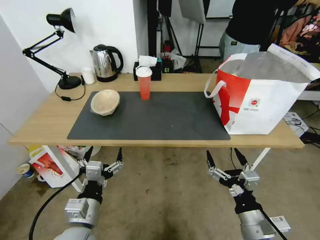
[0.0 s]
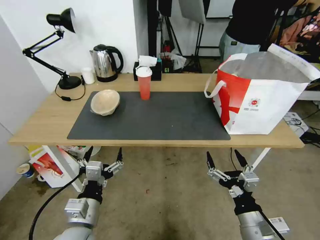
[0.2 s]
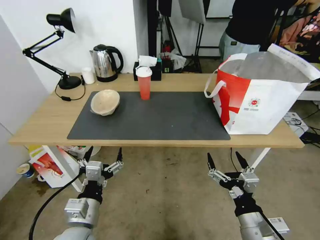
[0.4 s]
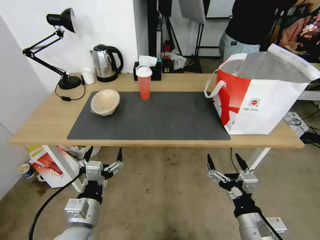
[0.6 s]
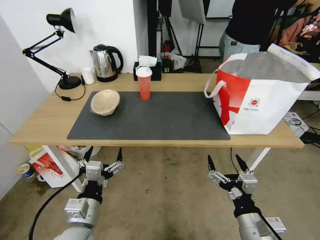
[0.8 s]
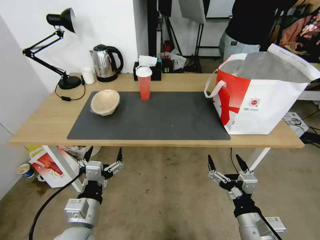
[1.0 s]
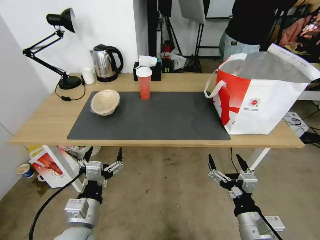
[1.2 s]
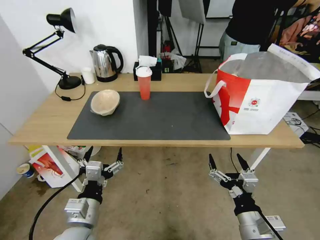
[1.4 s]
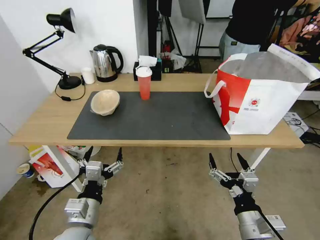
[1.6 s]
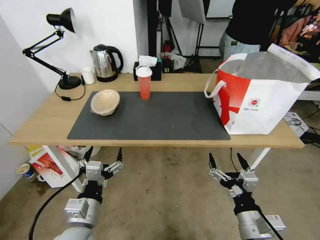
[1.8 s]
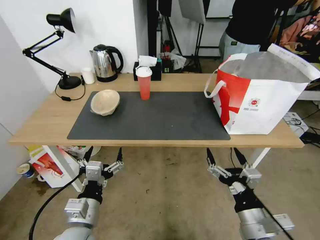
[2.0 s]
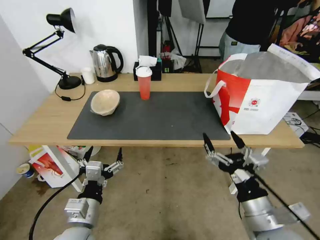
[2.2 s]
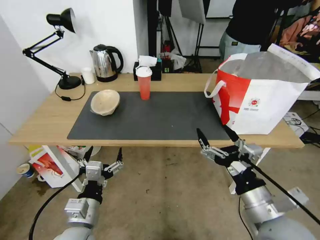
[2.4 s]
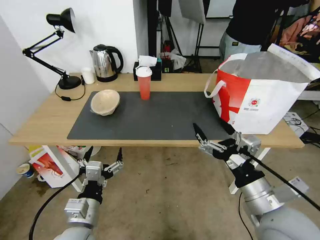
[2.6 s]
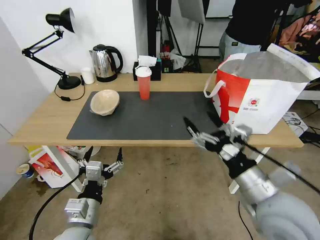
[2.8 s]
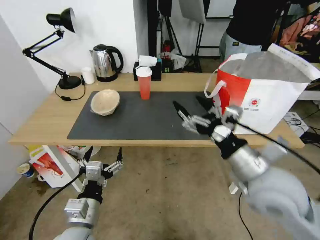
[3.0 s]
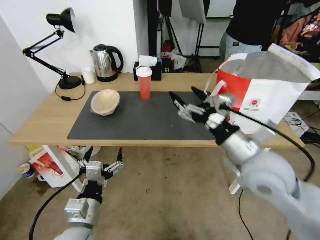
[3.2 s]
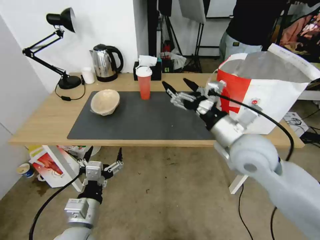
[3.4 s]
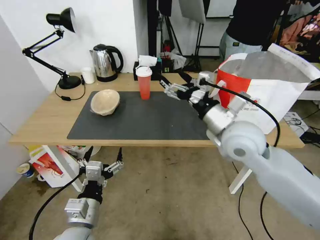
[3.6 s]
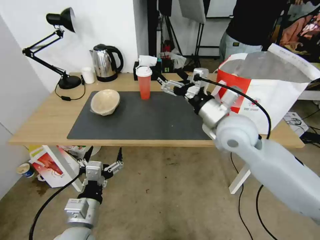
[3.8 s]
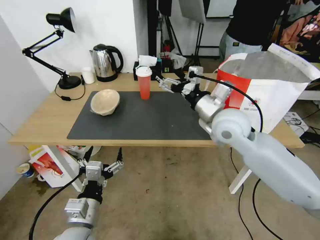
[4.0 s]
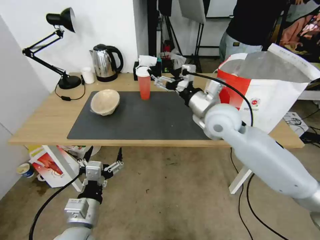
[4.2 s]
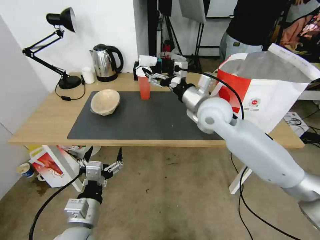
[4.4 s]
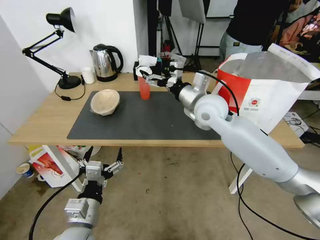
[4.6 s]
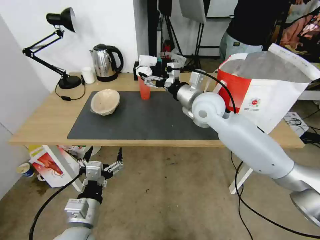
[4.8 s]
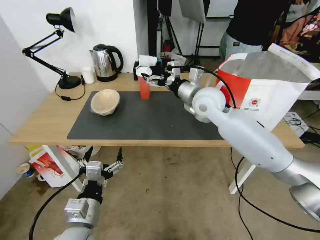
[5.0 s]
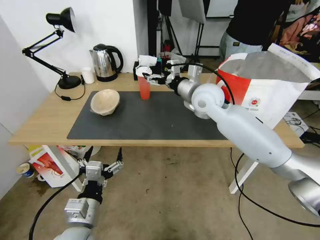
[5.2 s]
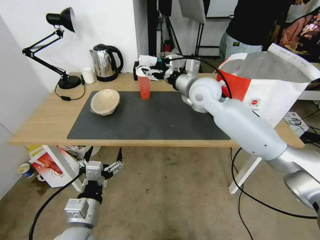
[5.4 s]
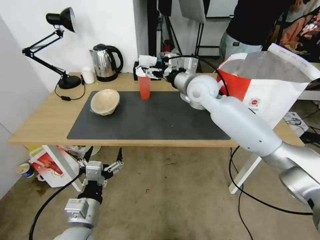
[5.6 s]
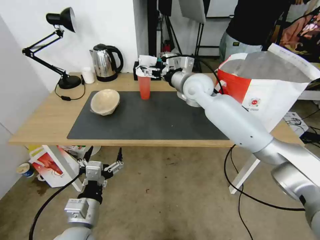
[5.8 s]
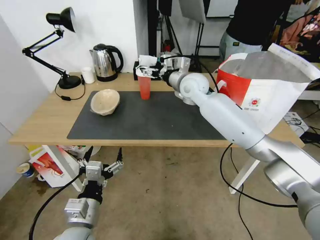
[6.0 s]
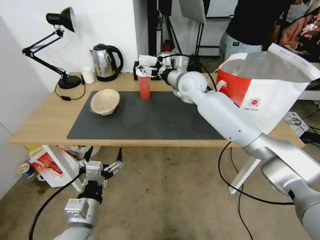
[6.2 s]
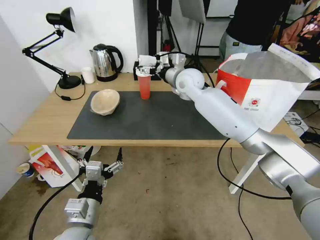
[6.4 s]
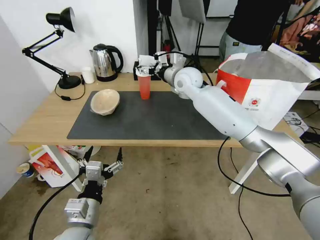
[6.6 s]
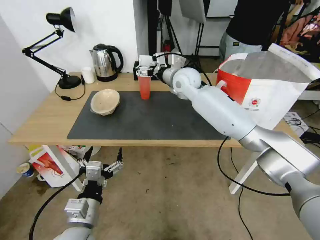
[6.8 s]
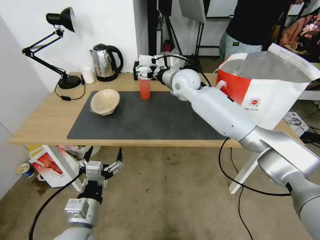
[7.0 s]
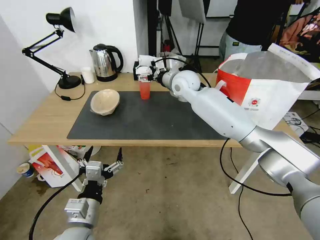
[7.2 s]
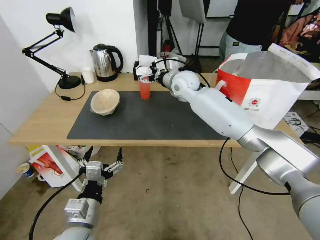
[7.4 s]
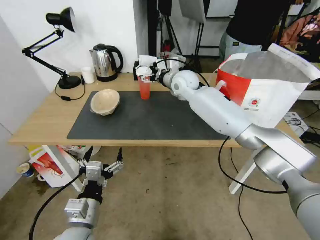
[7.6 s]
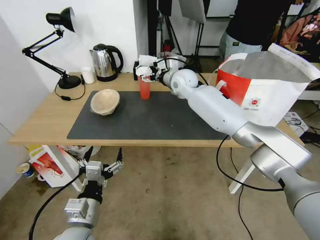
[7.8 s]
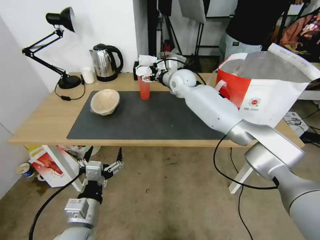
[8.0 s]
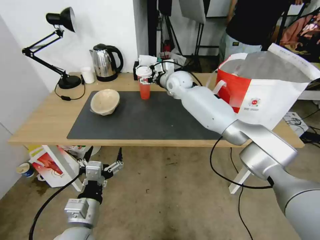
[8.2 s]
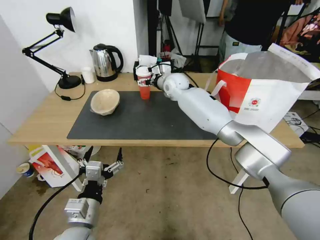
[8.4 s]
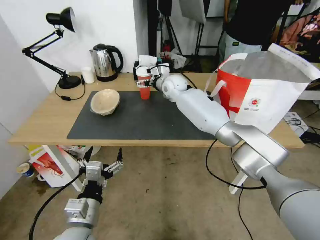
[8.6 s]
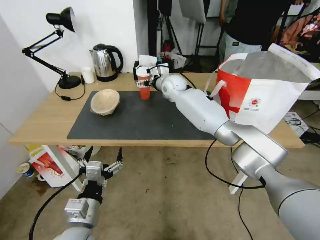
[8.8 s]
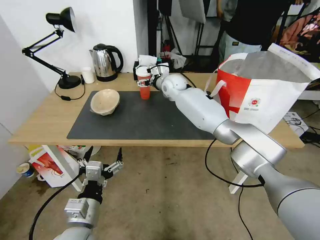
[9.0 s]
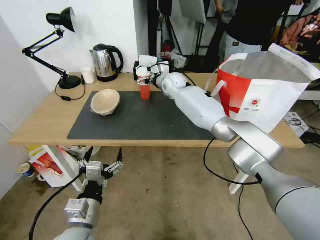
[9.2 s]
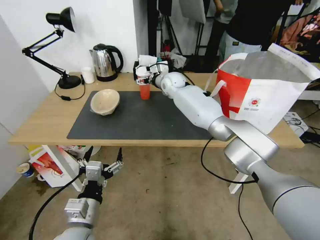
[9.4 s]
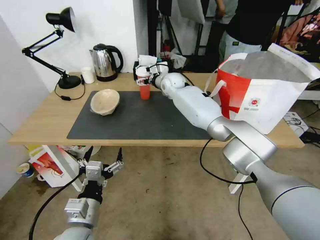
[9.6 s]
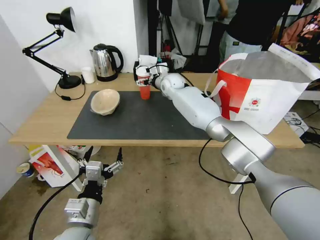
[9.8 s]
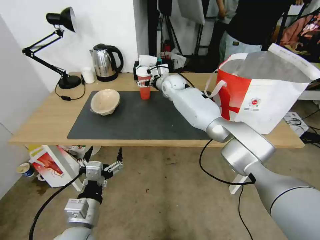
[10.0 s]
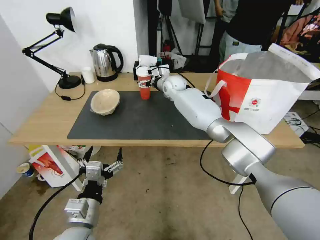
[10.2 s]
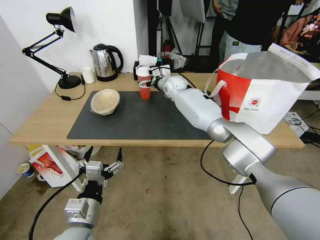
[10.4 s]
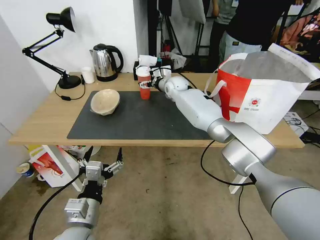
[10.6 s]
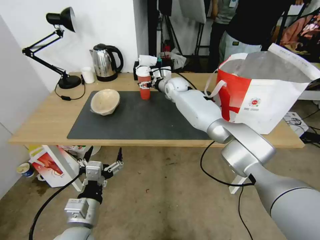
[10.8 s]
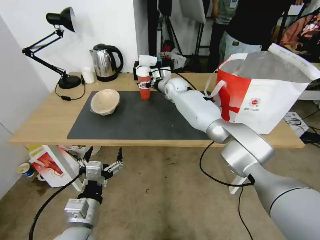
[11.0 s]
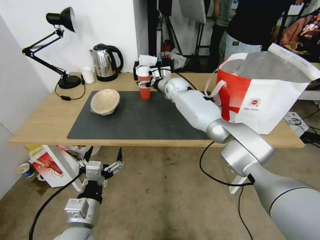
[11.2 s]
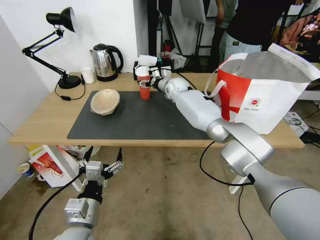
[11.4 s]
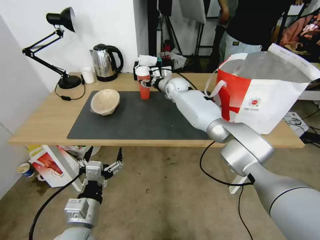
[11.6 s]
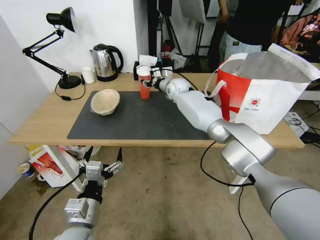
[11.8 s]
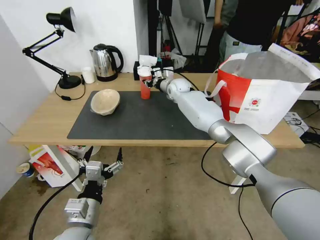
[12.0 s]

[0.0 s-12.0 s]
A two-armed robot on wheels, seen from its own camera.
Task of the whole recording: Pick up the trash from the table and place it into the takeout bag.
0.0 to 1.6 s: The grippers make only small movements.
1.6 to 3.0 s: The right gripper shifts approximately 15 cm upward and forward.
3.0 to 4.4 s: The right gripper goes about 20 cm forward.
4.4 to 6.0 s: The right gripper is displaced forward by about 15 cm.
6.0 to 7.6 s: The grippers make only small movements.
7.6 to 9.0 s: The right gripper ends up approximately 5 cm from where it was.
9.0 to 10.4 s: The grippers move only a little.
10.4 to 12.0 s: The right gripper closes.

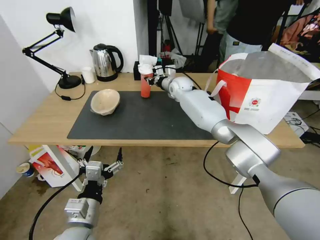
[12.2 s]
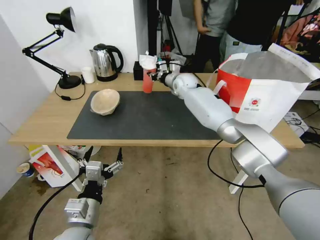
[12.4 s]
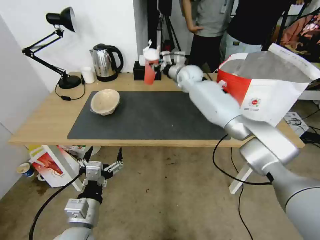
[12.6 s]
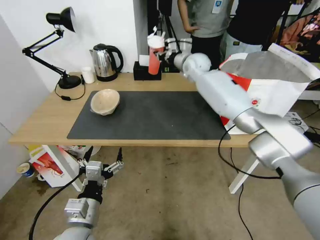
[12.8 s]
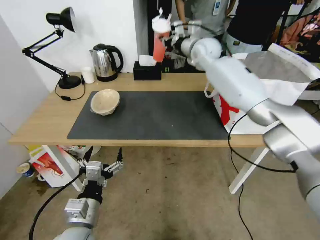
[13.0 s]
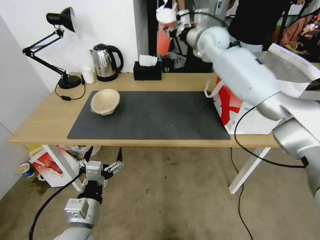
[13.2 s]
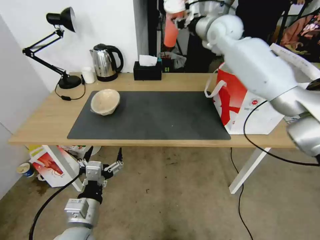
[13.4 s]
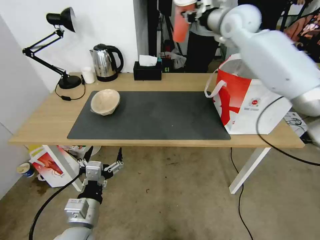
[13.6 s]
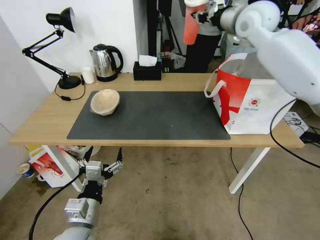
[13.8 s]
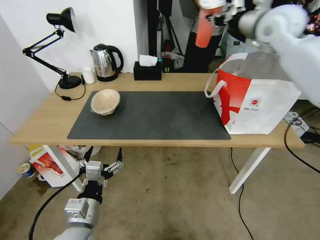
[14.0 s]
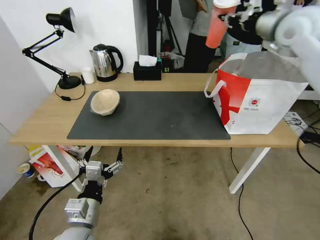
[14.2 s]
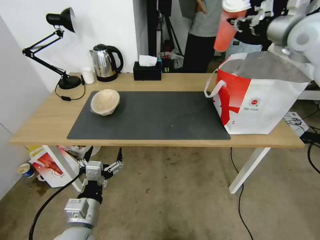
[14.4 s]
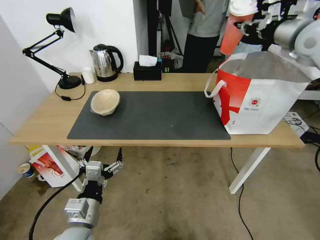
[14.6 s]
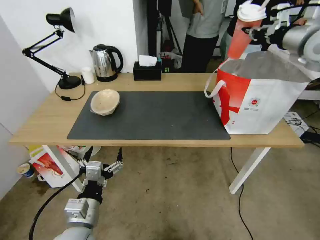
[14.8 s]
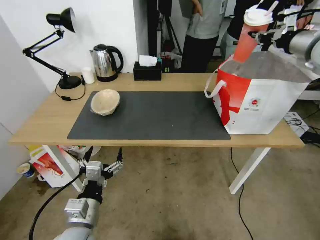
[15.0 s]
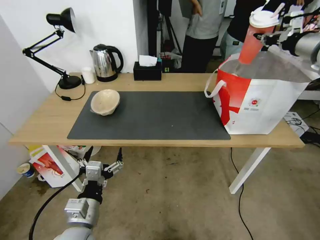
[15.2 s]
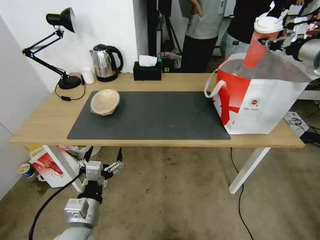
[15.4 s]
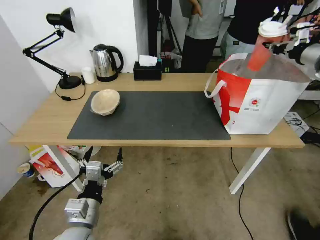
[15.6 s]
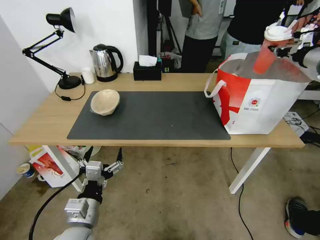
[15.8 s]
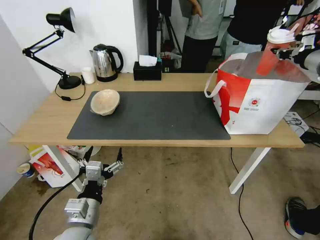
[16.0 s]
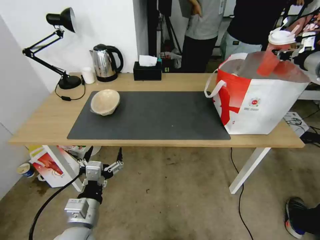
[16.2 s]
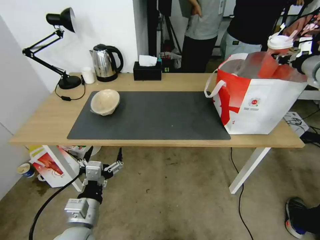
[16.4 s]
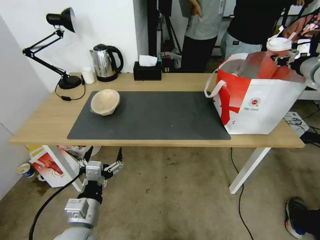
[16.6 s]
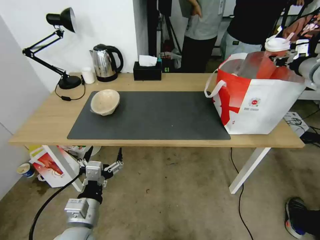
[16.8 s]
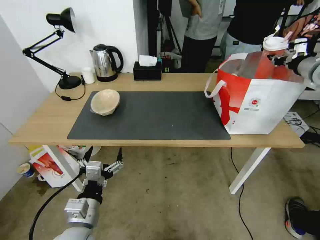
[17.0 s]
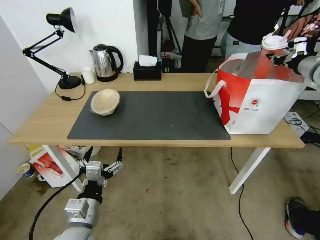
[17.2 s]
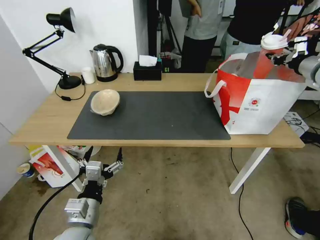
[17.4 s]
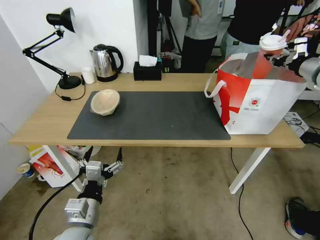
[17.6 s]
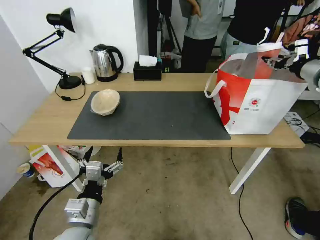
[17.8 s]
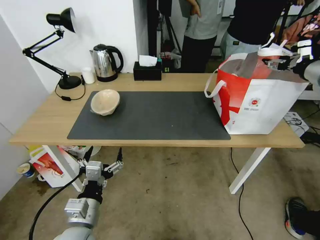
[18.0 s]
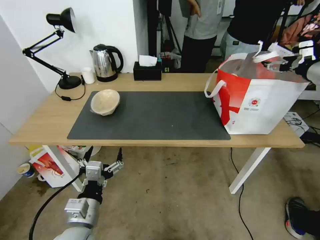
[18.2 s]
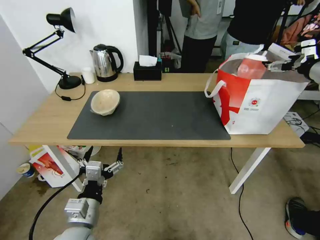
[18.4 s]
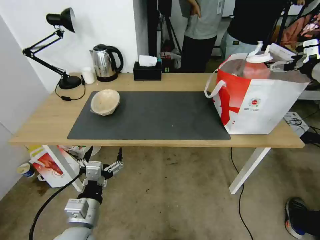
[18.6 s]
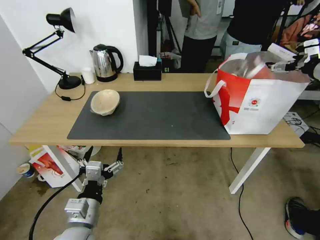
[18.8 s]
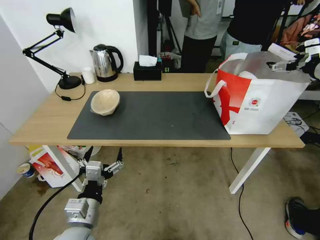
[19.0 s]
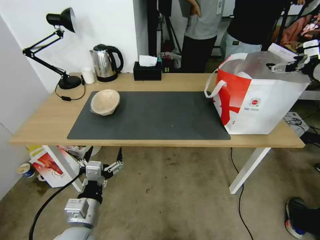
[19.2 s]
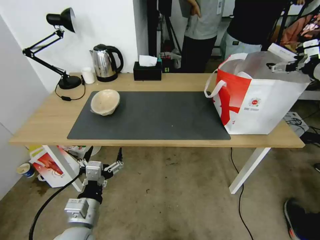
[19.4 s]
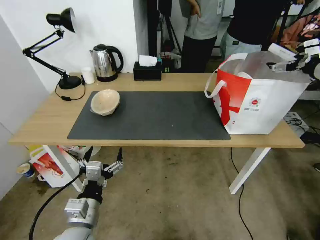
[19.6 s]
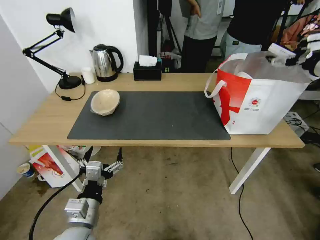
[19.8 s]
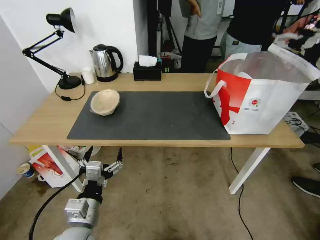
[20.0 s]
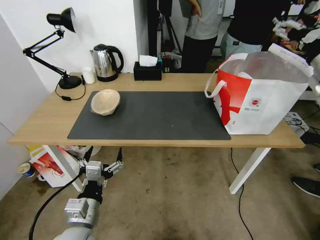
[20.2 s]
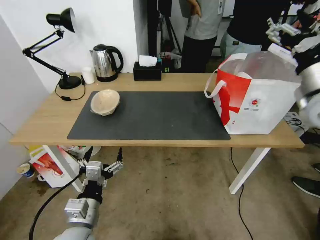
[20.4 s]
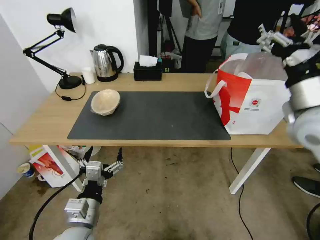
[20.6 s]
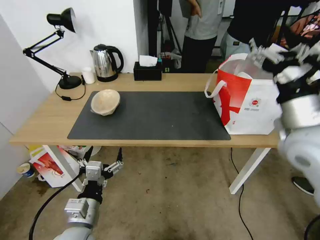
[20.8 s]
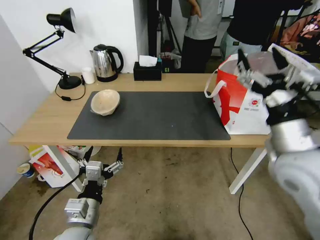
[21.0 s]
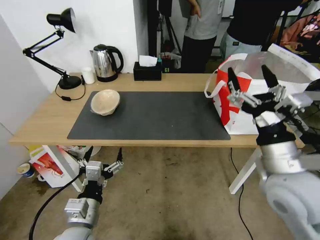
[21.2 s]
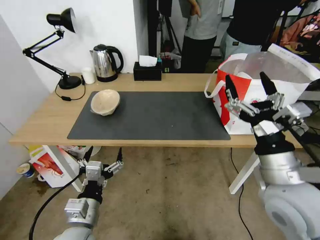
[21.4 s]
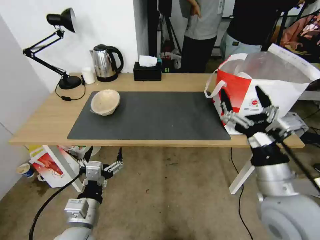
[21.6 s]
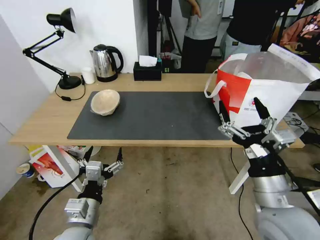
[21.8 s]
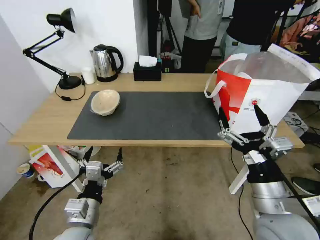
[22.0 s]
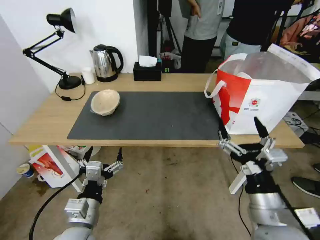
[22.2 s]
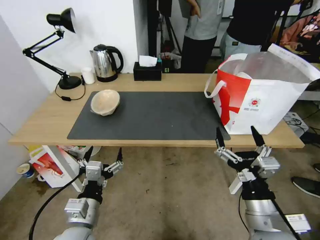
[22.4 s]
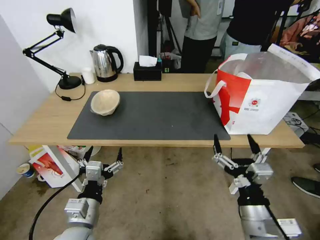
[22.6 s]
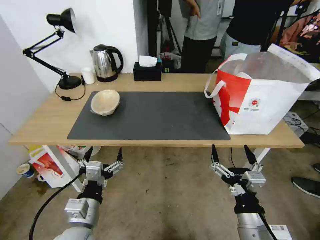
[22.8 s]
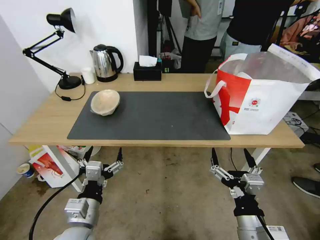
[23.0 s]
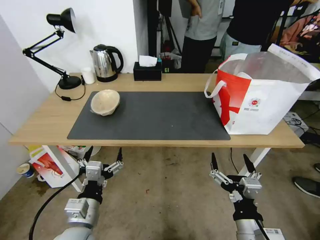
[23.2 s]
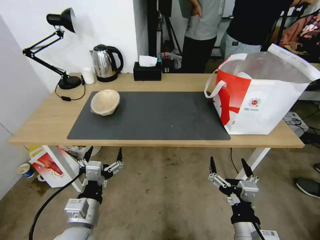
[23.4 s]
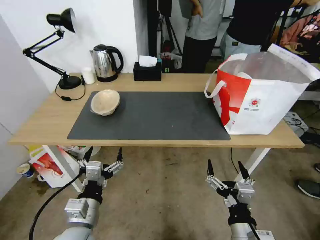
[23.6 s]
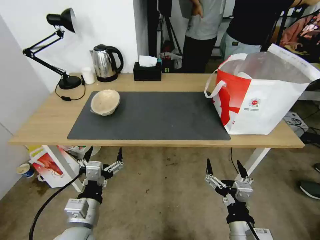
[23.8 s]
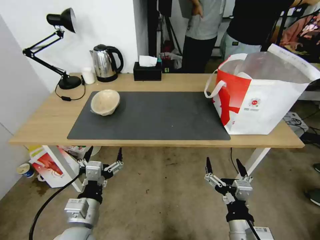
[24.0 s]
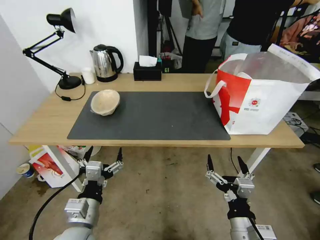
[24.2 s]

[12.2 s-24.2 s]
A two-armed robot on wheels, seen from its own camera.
Task of the whole recording: Pick up the trash from the table and place it into the takeout bag.
12.2 to 13.8 s: The right gripper is displaced upward and to the right by roughly 30 cm.
13.8 to 15.2 s: The right gripper moves to the right and backward, approximately 20 cm.
15.2 to 16.6 s: The right gripper goes about 10 cm to the right and downward.
16.6 to 18.2 s: The right gripper shifts roughly 5 cm backward, and opens.
18.2 to 19.8 s: There are only small adjustments of the grippers.
19.8 to 21.2 s: The right gripper heads to the left, backward and downward, covering some 35 cm.
21.2 to 22.6 s: The right gripper moves downward and backward, some 15 cm.
22.6 to 24.2 s: The right gripper heads downward, covering roughly 10 cm.
